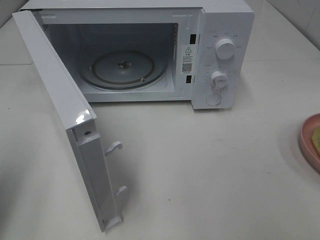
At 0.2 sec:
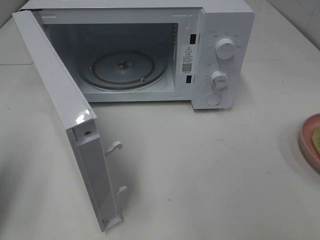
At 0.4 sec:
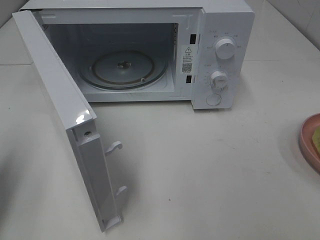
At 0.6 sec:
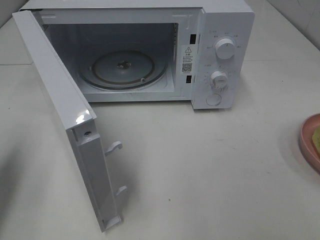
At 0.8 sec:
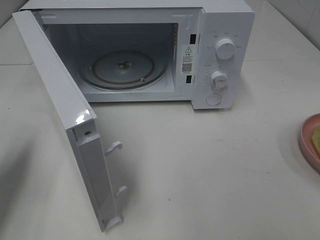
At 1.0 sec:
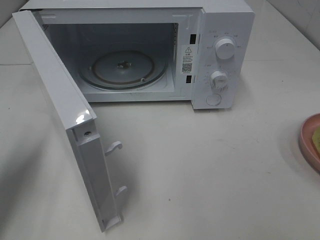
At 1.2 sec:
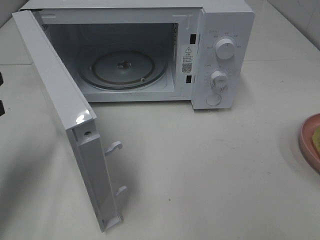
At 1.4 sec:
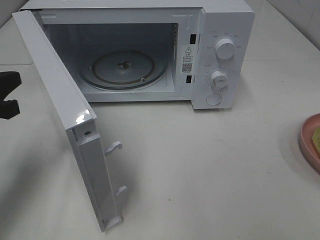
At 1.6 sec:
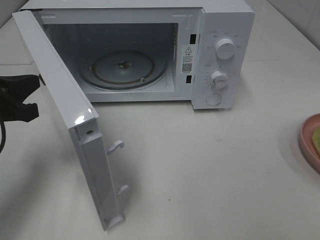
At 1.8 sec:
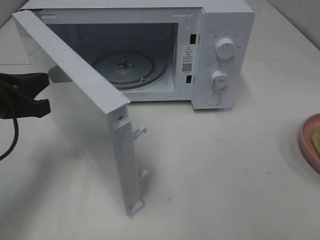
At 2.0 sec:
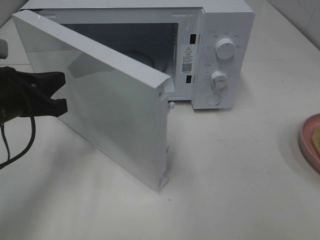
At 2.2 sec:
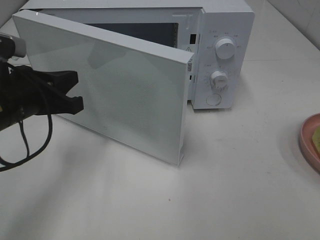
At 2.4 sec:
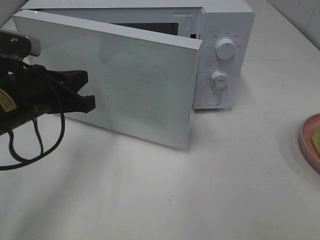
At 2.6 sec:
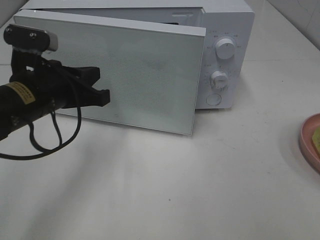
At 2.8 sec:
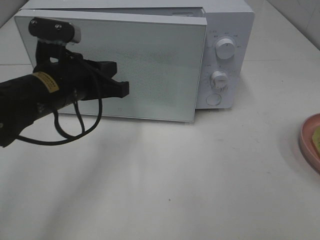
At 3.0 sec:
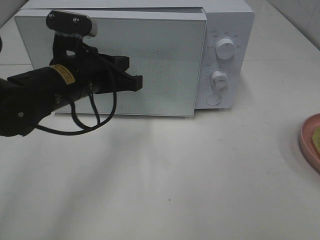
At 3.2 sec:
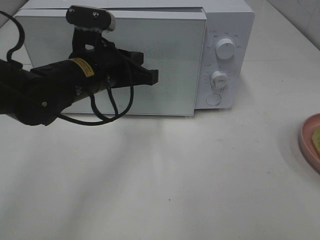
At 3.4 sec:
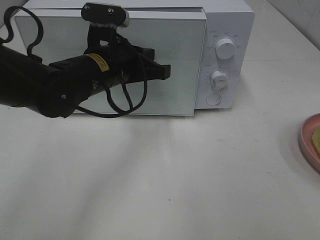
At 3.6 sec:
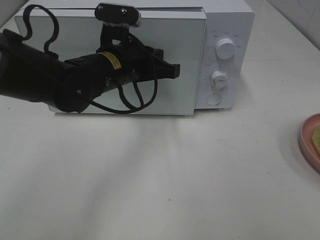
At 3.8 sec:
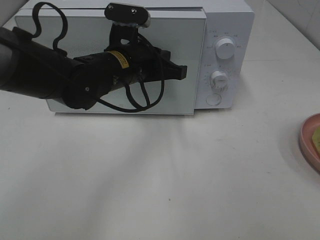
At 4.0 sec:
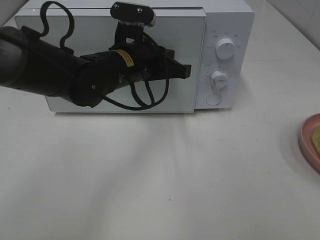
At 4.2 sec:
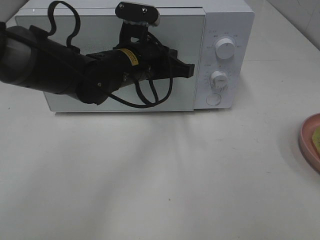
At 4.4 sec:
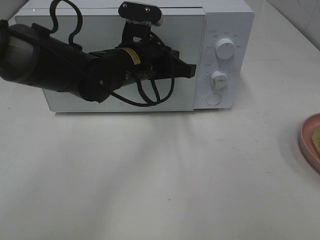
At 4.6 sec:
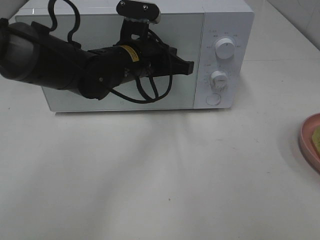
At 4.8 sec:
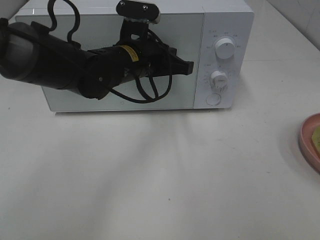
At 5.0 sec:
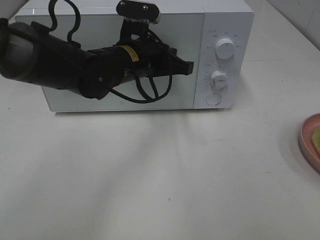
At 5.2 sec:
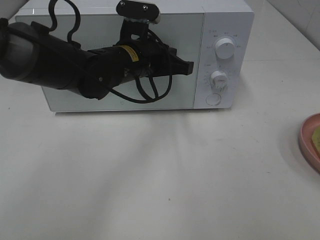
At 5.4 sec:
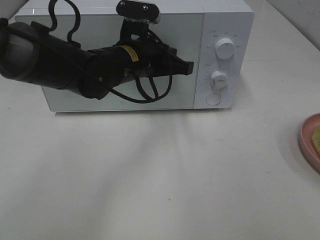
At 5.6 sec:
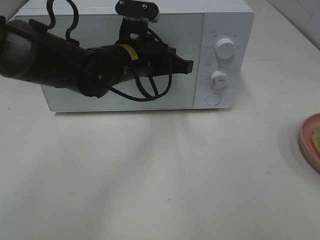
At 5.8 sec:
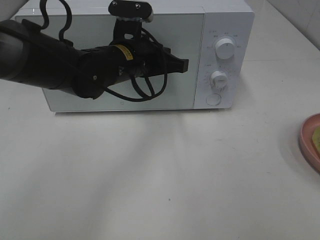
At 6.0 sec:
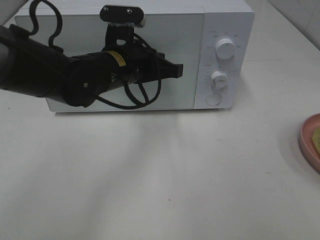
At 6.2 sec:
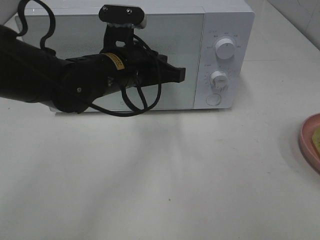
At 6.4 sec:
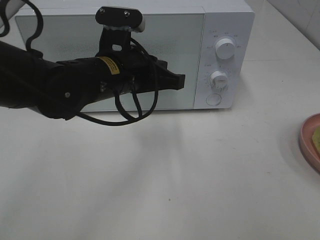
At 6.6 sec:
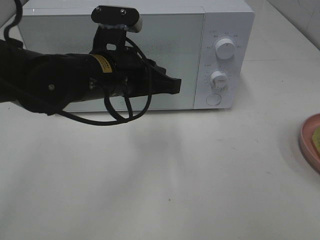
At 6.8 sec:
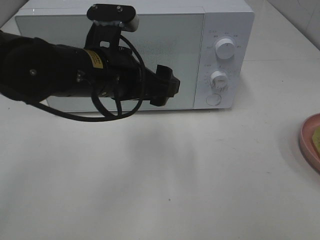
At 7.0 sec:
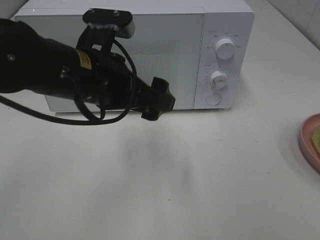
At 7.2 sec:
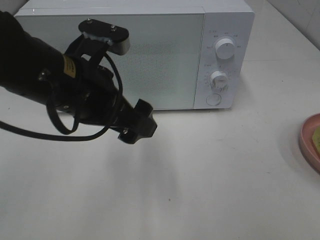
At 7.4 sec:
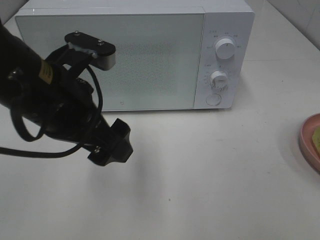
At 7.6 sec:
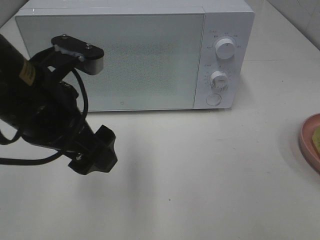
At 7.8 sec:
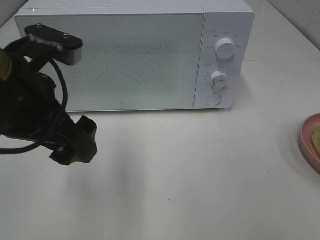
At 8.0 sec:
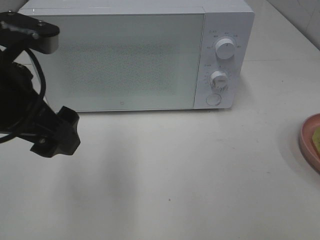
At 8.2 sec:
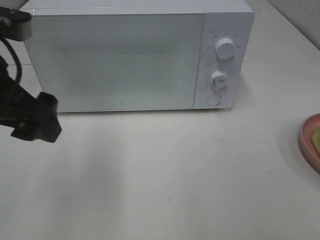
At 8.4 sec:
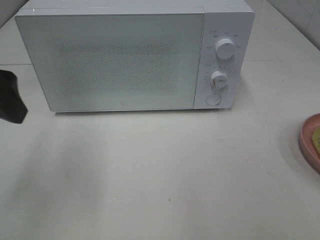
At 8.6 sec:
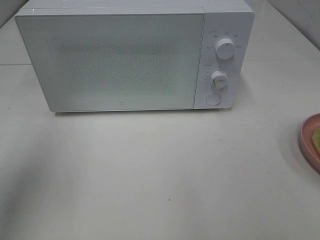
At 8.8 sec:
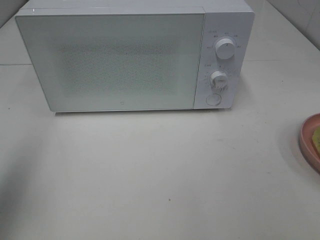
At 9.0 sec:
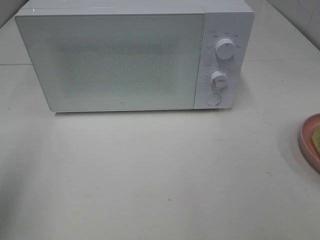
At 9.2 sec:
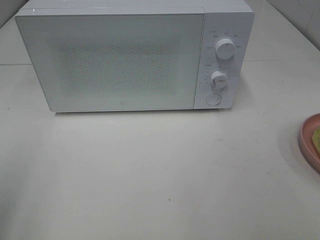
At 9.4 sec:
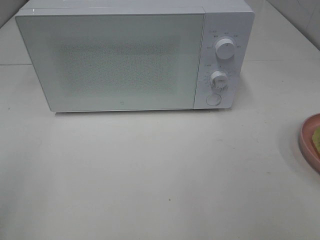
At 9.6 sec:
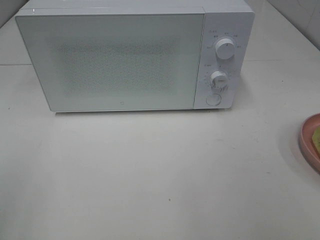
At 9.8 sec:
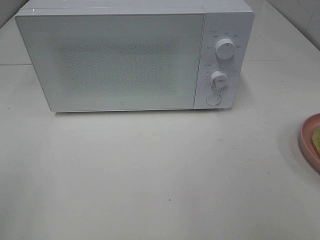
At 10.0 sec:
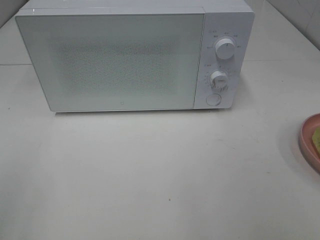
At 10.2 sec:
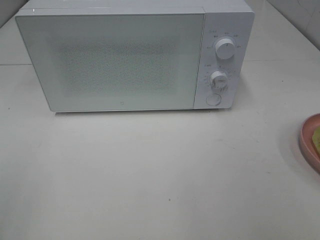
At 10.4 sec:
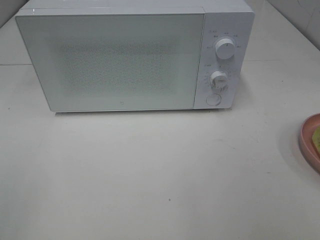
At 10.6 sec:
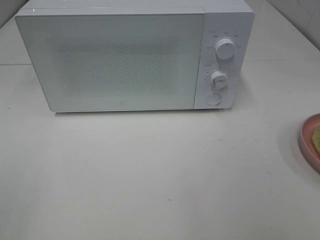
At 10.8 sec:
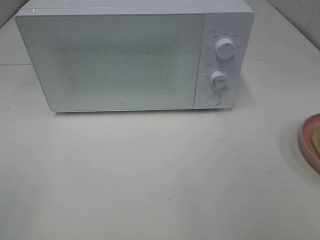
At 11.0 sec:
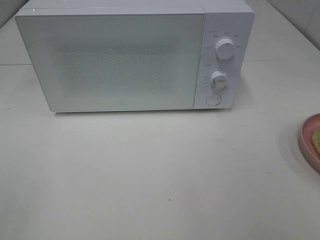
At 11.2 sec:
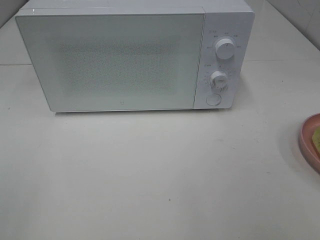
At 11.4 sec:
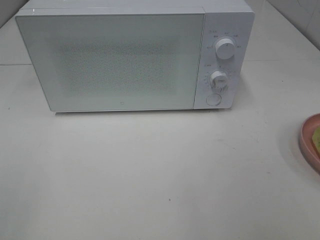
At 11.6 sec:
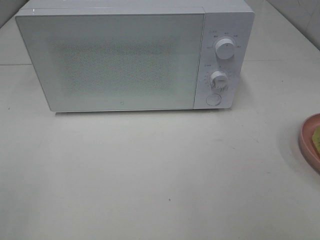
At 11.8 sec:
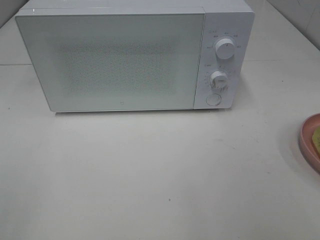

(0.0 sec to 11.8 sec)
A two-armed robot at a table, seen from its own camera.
Task of the whole recording: Heat Sandwich.
Step, 0.0 sec - 6.2 sec: Left hand: close the microwave door.
0.0 sec - 1.4 sec: The left gripper shifts about 10 cm forward and downward.
1.4 sec - 3.0 sec: The left gripper moves to the right, some 15 cm.
3.0 sec - 4.4 sec: The left gripper is displaced to the right and forward by roughly 10 cm.
4.4 sec - 6.0 sec: The grippers make only small movements.
6.0 sec - 7.4 sec: The left gripper travels backward, to the left and upward by approximately 15 cm, and opens up.
7.4 sec - 8.8 sec: The left gripper heads to the left and upward, covering roughly 20 cm.
8.8 sec - 10.4 sec: The left gripper heads backward, covering roughly 15 cm.
10.4 sec - 11.8 sec: Both grippers stay put.
